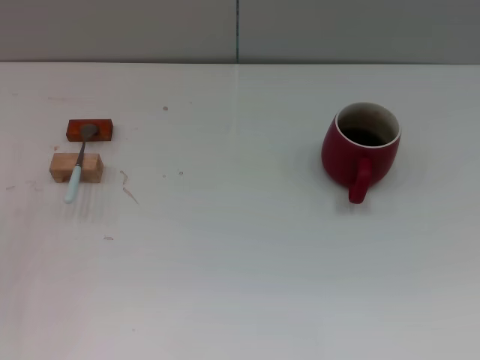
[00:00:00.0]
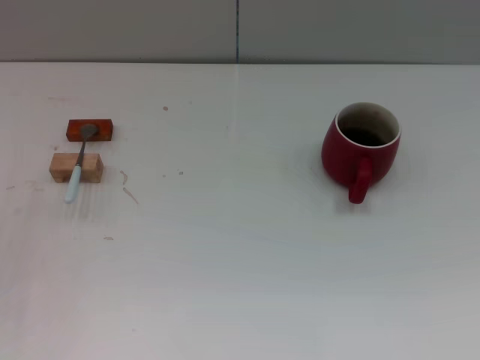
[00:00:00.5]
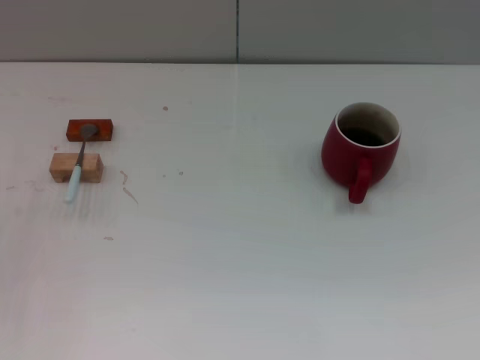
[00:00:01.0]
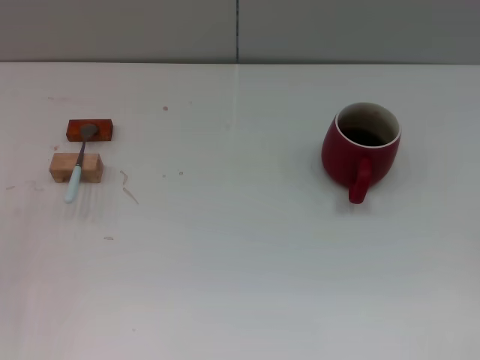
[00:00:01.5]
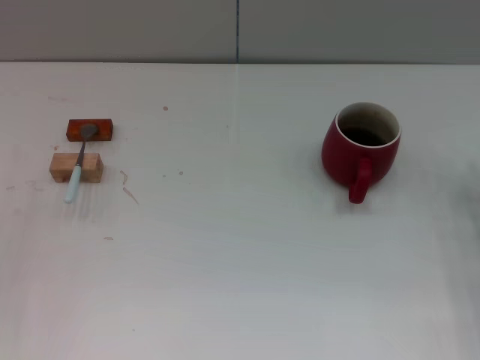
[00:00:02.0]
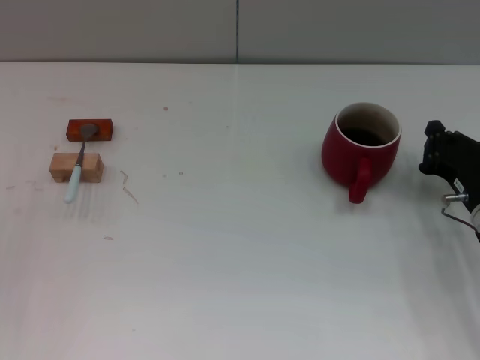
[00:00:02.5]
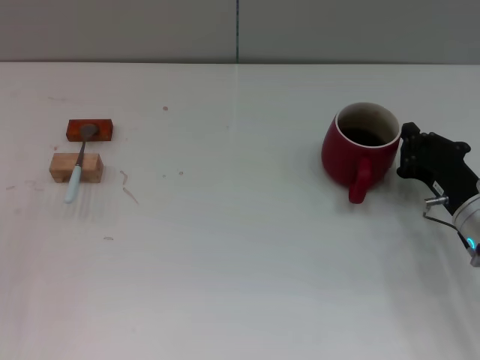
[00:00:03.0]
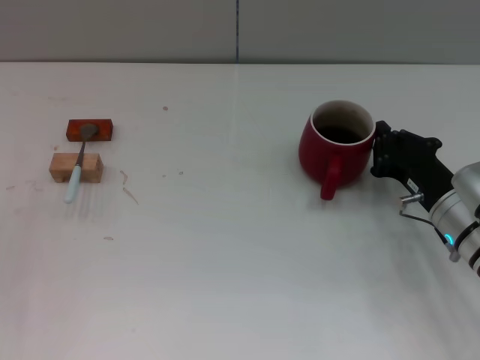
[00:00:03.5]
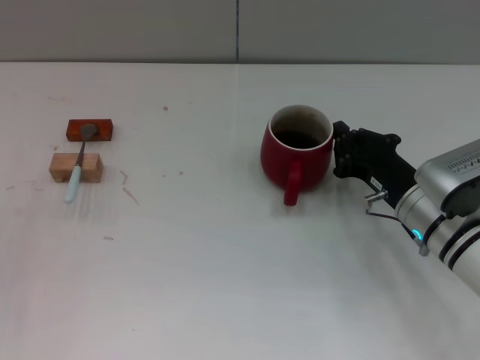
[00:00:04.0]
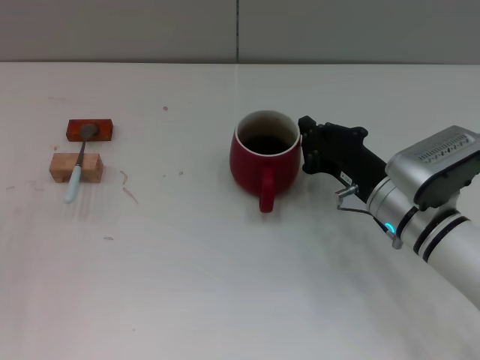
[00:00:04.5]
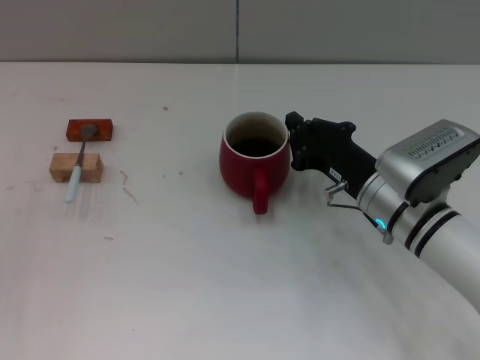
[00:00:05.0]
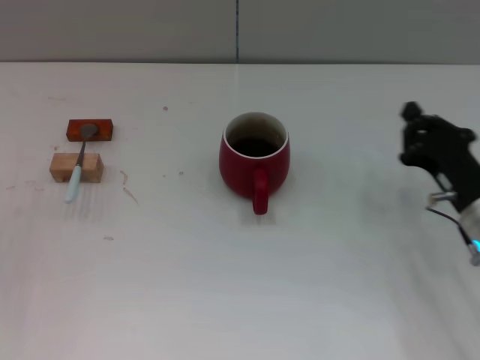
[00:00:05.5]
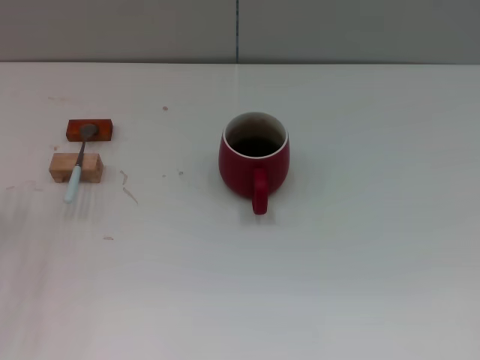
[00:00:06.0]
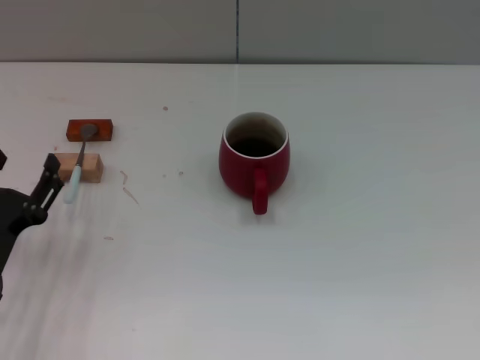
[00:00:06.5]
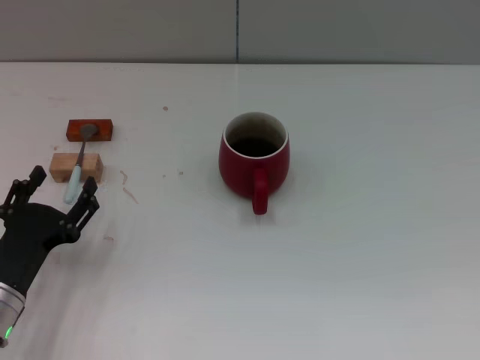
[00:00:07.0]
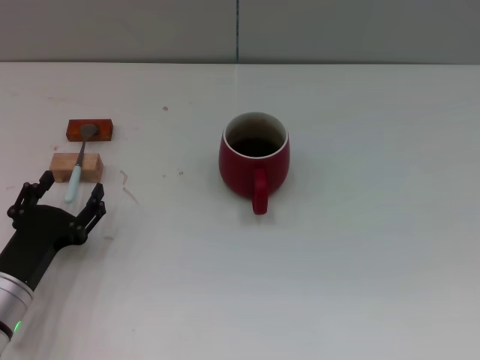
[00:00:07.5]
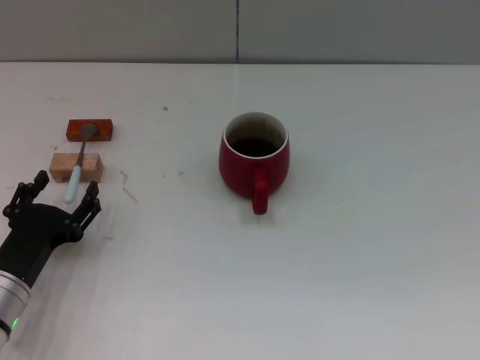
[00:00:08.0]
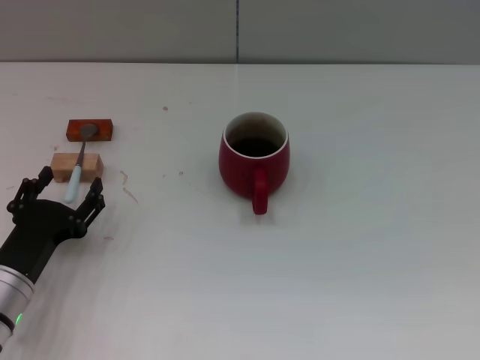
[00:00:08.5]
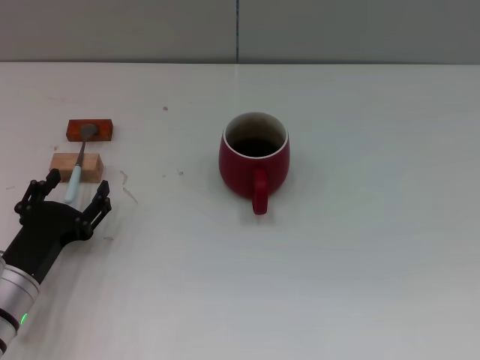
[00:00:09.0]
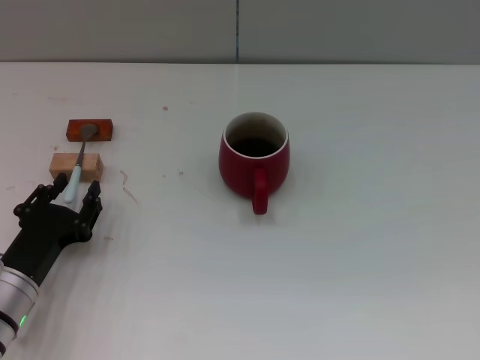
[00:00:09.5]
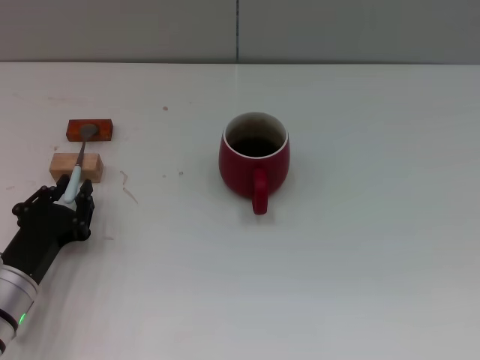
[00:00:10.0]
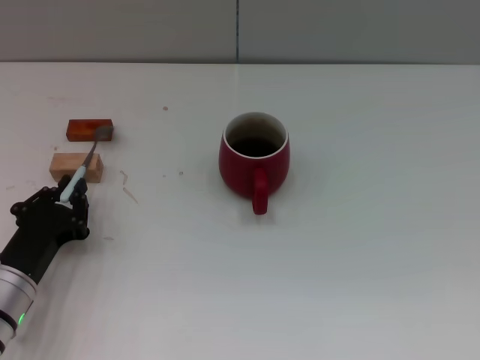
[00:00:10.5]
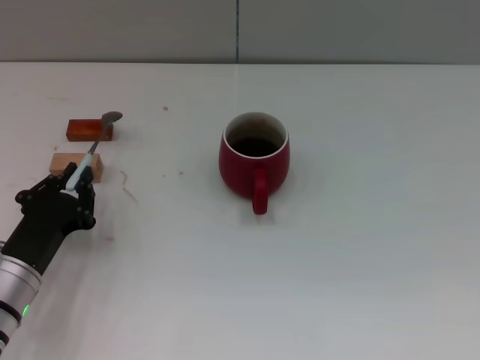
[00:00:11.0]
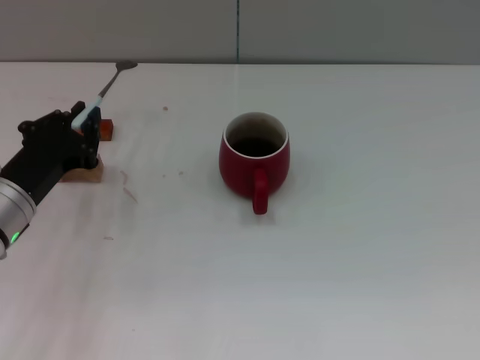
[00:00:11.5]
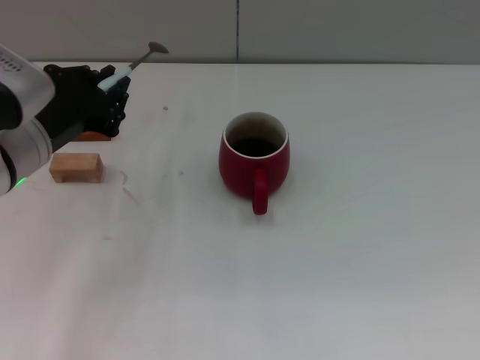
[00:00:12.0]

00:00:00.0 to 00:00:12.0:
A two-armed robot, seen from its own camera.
Task of the whole recording: Move the red cup to the center, lift the blue spoon, stir it three times in the cup, and put the spoon into the cup.
Step, 00:00:00.0 to 00:00:05.0: Move the cup with coffee to the center of view with the right gripper.
Step, 00:00:05.5 to 00:00:11.5: Pick up the spoon with the left gripper.
00:00:00.0 to 00:00:02.0: The right gripper heads forward and to the left, covering approximately 20 cm, and closes its fingers.
00:00:02.0 to 00:00:04.0: The right gripper goes some 10 cm to the left.
00:00:04.0 to 00:00:06.0: The right gripper shifts some 20 cm to the right and backward.
00:00:06.0 to 00:00:08.0: The left gripper is displaced to the right by roughly 5 cm.
00:00:08.0 to 00:00:10.0: The left gripper closes up.
00:00:10.0 to 00:00:12.0: The left gripper travels upward and forward by about 20 cm, and closes its fingers.

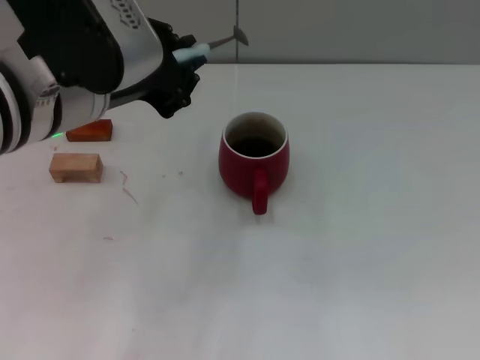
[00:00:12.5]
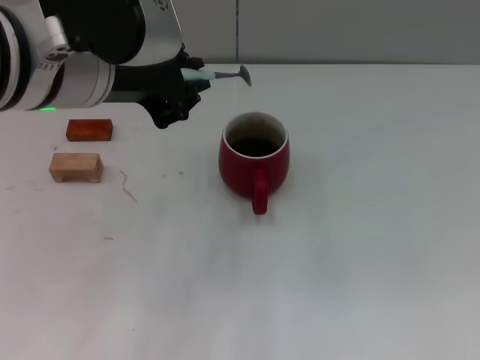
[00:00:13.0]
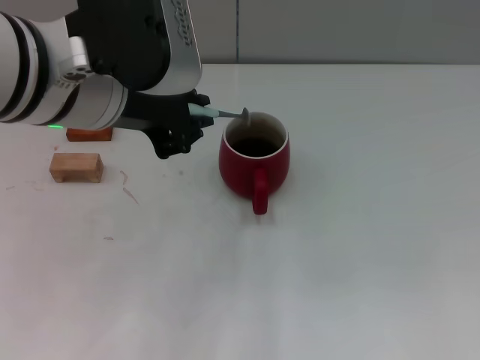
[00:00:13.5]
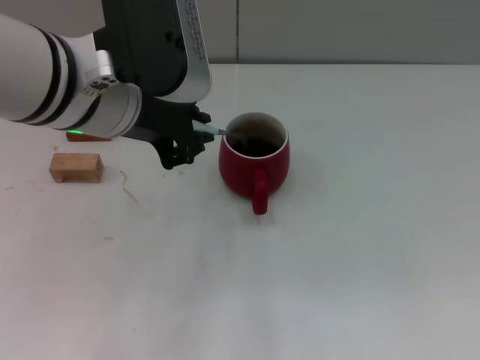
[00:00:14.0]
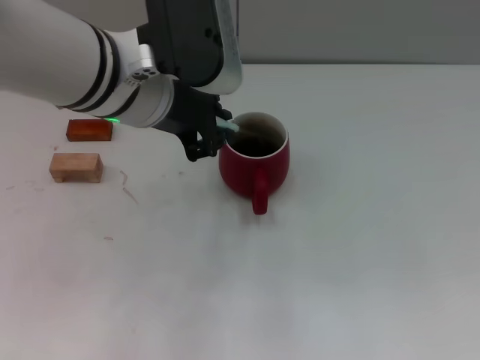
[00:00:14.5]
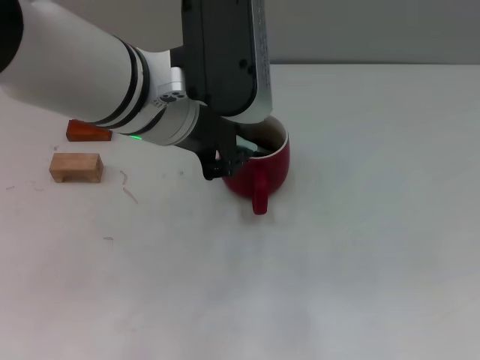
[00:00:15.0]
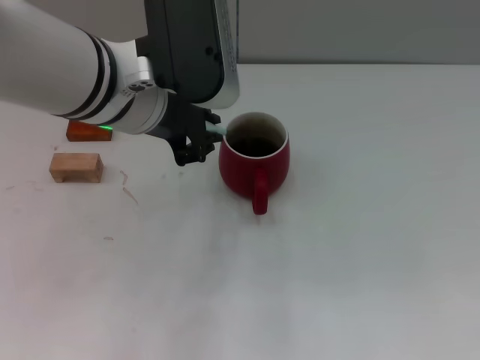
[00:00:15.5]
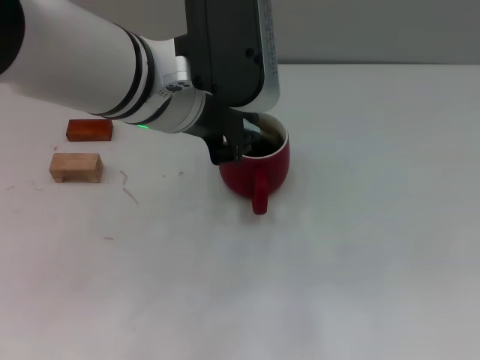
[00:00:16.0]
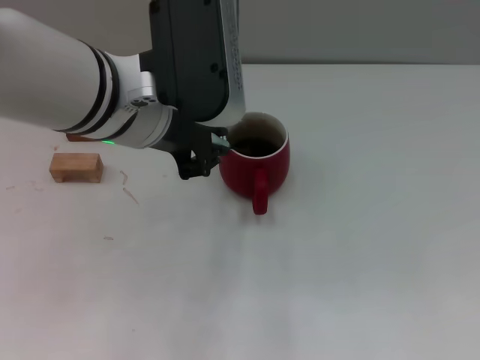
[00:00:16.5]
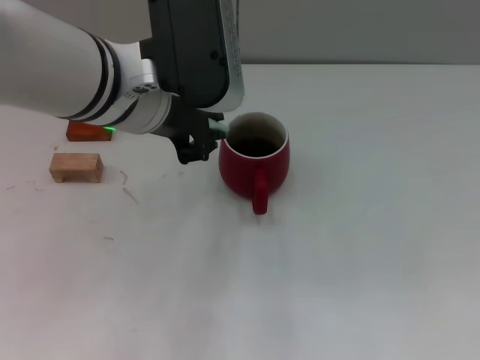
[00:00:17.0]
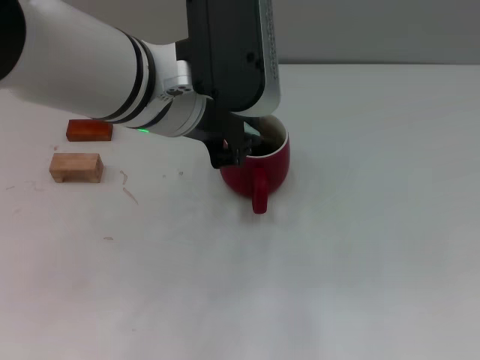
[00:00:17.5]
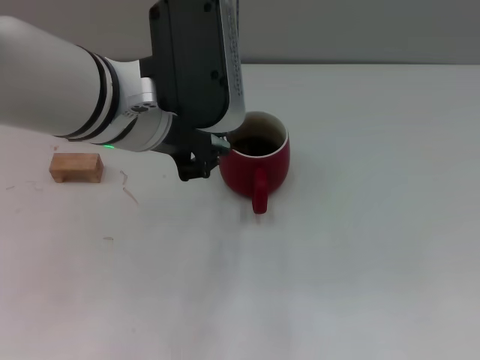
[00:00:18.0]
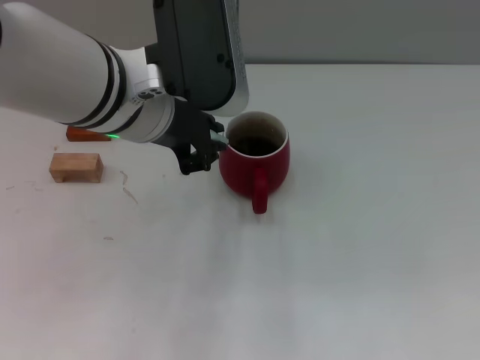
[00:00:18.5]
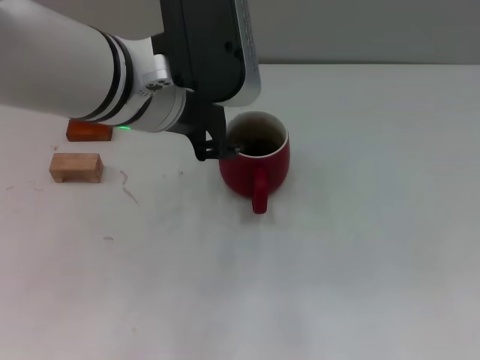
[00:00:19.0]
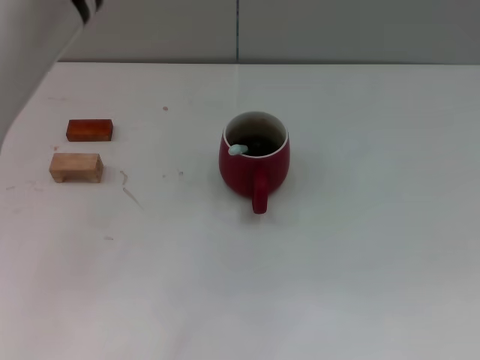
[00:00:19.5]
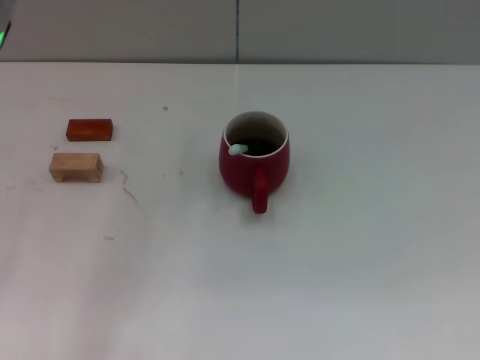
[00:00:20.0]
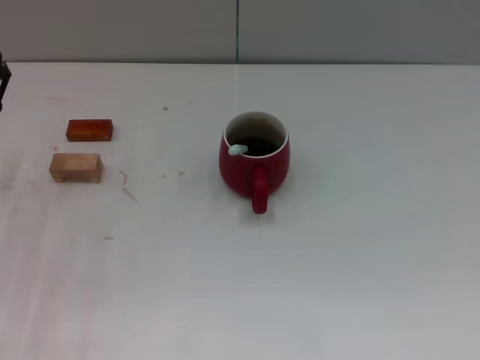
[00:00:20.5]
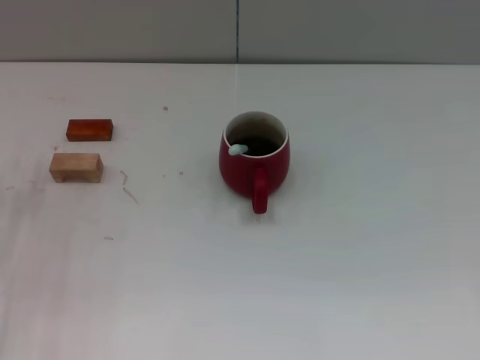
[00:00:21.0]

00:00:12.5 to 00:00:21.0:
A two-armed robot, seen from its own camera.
Task of the whole recording: Move the red cup to the center, lift the blue spoon, stir it three times in the cup, and put the spoon into the cup.
Step, 00:00:12.5 to 00:00:19.0: Stir the coffee in the cup with the left gripper.
00:00:12.5 to 00:00:14.5: The left gripper travels forward by roughly 5 cm.
00:00:14.5 to 00:00:19.0: There are only small adjustments of the grippers.
00:00:19.0 to 00:00:21.0: The left gripper moves to the left and downward, approximately 30 cm, and opens.
